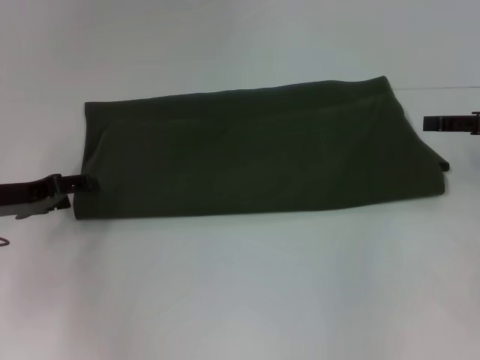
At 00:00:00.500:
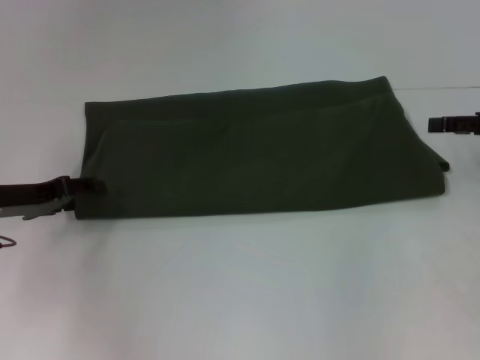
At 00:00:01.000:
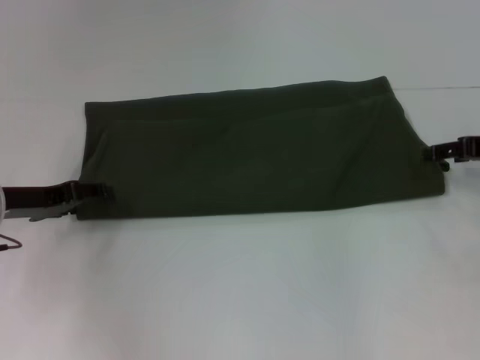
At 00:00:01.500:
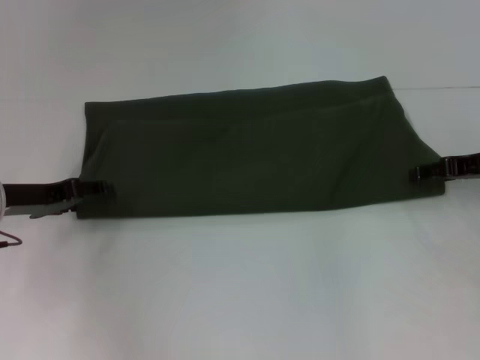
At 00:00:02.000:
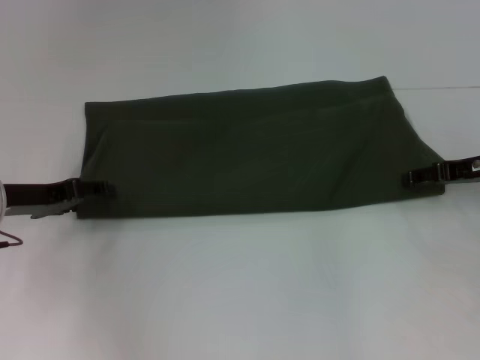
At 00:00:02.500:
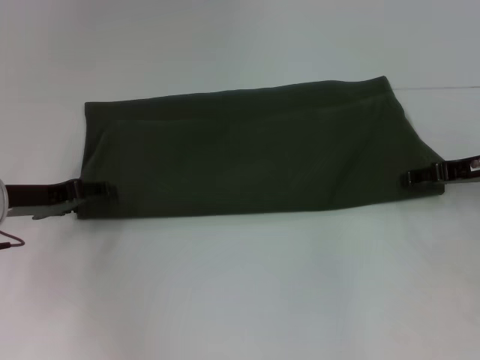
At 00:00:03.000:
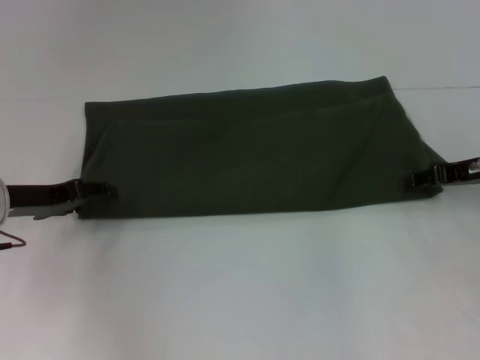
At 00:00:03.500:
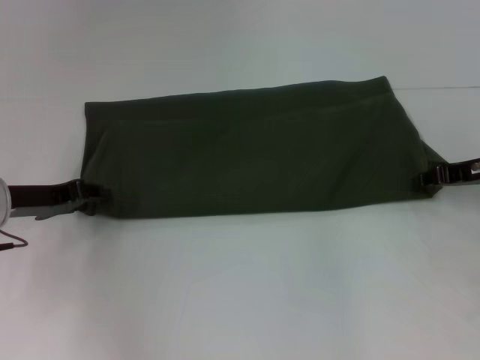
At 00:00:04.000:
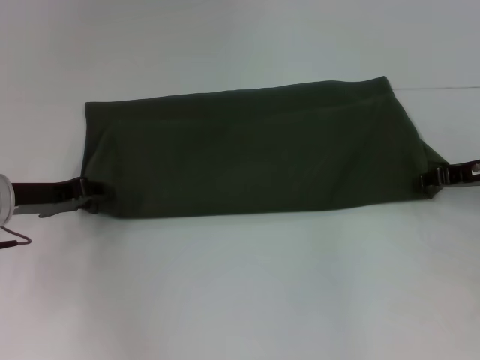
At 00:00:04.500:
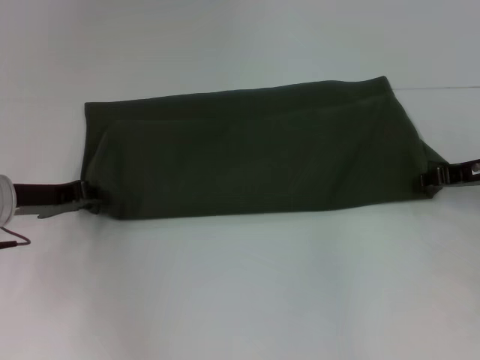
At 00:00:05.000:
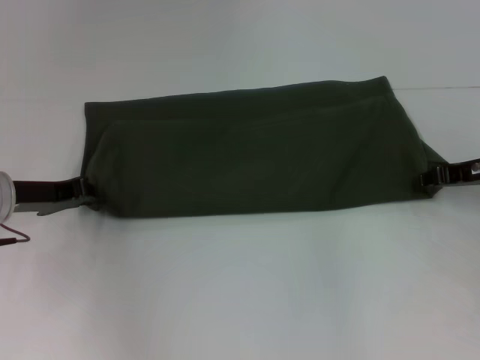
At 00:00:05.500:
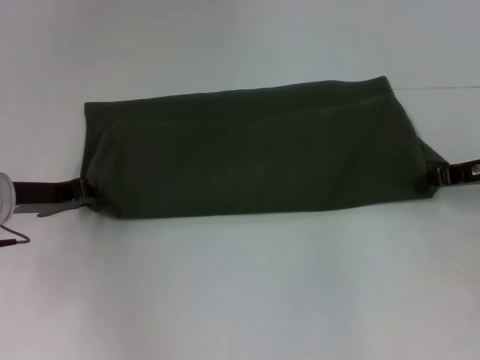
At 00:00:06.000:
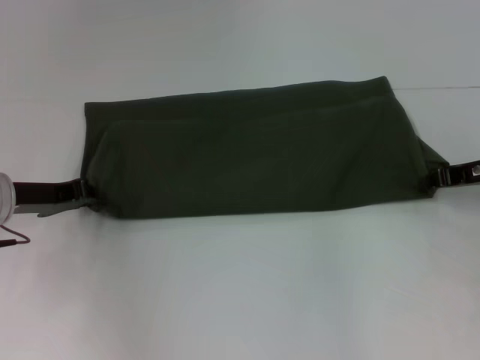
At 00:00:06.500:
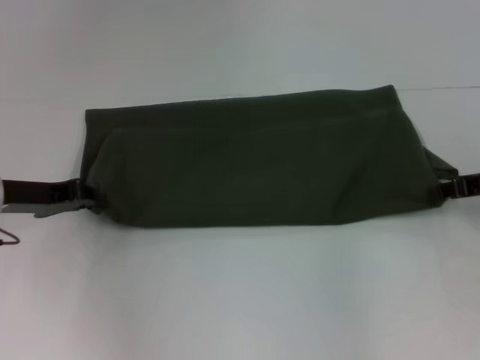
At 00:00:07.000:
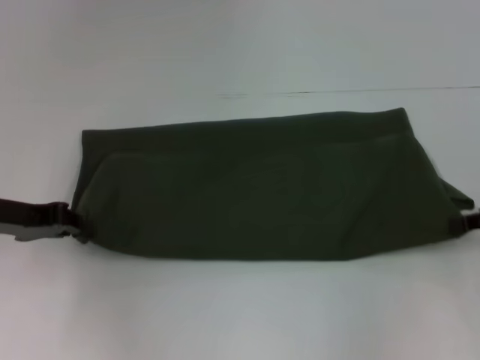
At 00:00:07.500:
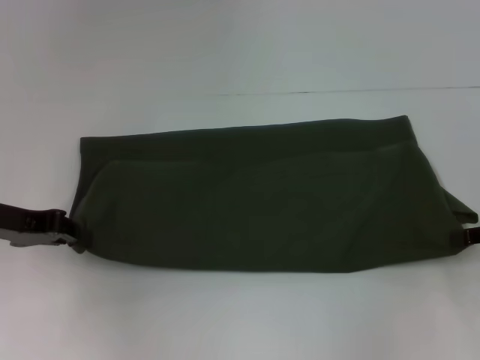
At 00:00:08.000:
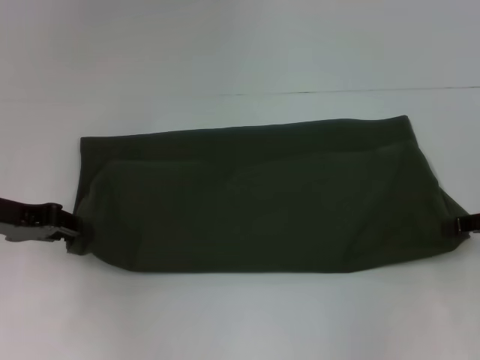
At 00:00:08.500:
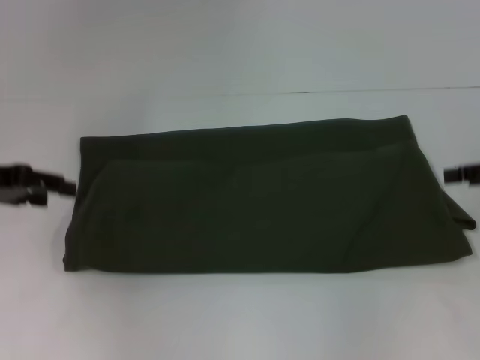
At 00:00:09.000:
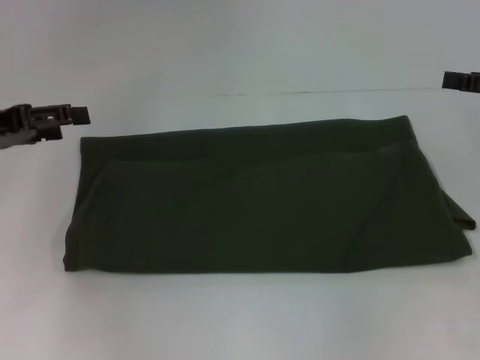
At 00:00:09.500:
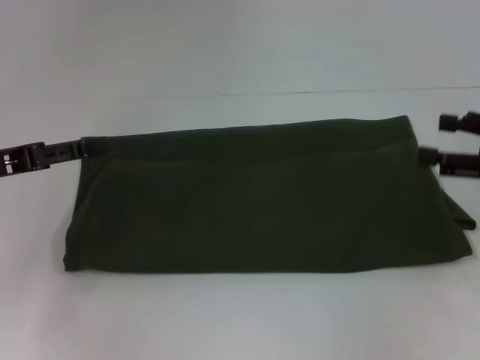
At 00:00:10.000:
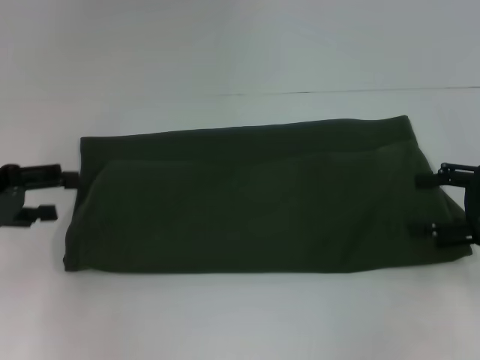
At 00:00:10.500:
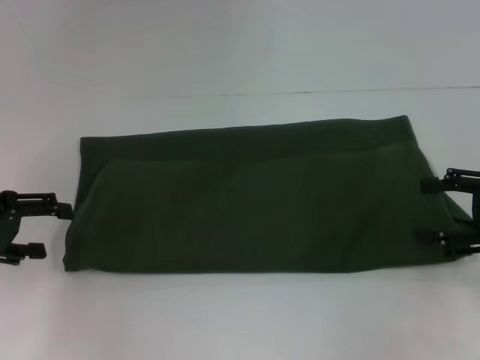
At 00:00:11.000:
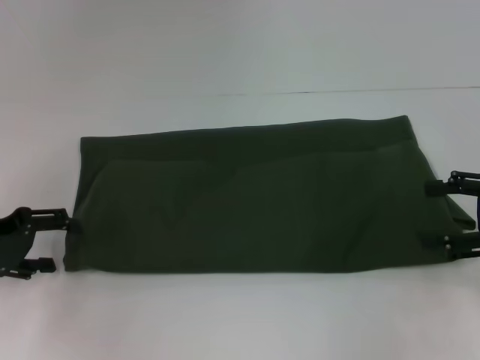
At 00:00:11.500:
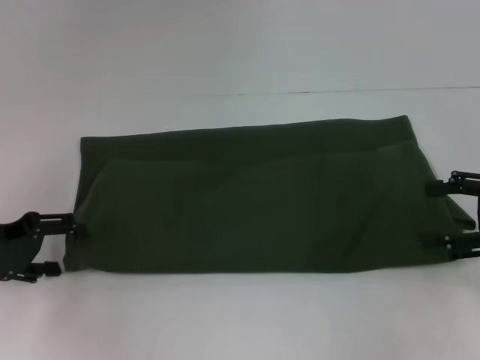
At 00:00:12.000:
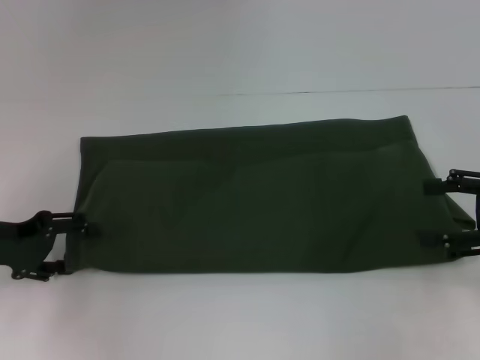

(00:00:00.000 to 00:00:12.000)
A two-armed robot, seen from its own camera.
00:00:00.000 - 00:00:02.000: The right gripper changes place by some 5 cm.
00:00:02.000 - 00:00:04.000: The left gripper closes.
00:00:06.000 - 00:00:08.000: The right gripper is displaced backward by approximately 10 cm; the left gripper moves about 5 cm.
00:00:08.000 - 00:00:10.000: The right gripper opens; the left gripper opens up.
00:00:10.000 - 00:00:12.000: The left gripper goes roughly 5 cm downward.

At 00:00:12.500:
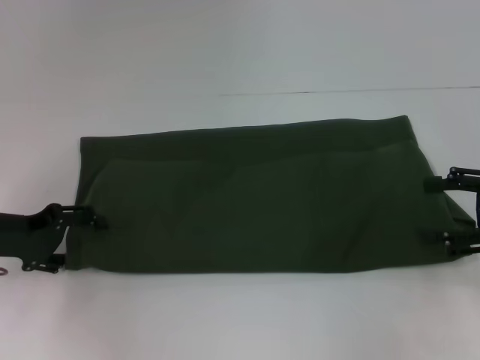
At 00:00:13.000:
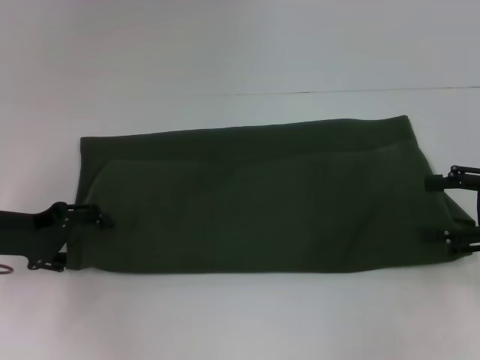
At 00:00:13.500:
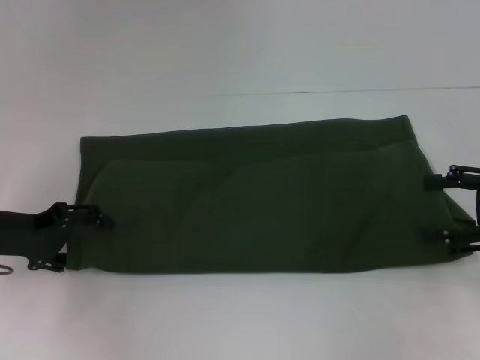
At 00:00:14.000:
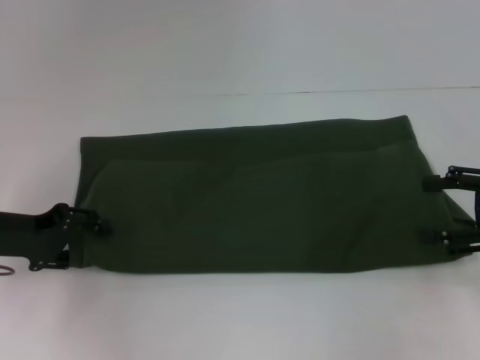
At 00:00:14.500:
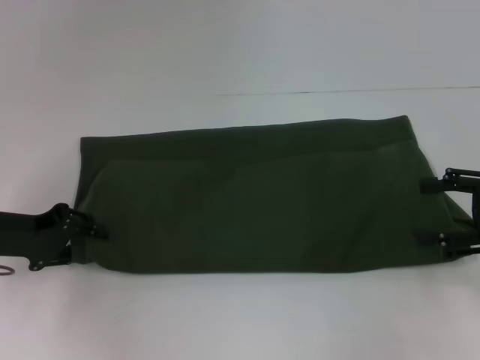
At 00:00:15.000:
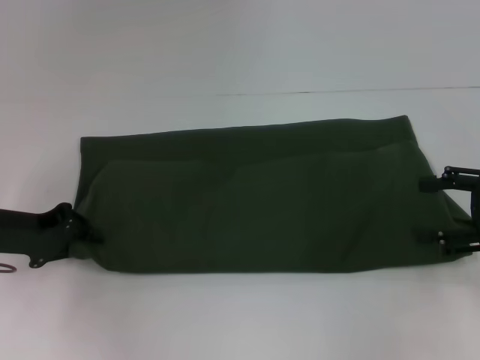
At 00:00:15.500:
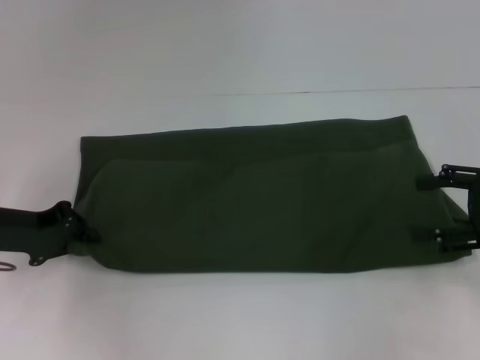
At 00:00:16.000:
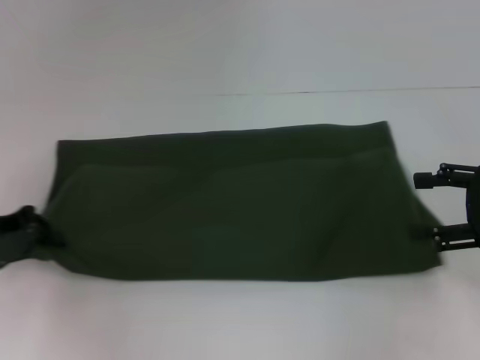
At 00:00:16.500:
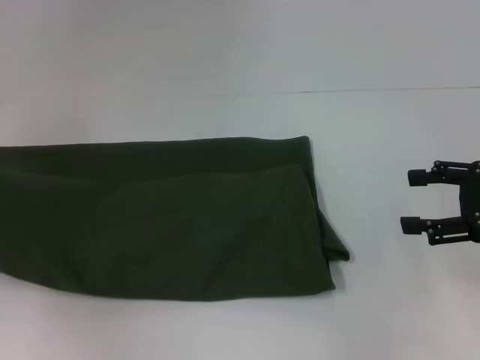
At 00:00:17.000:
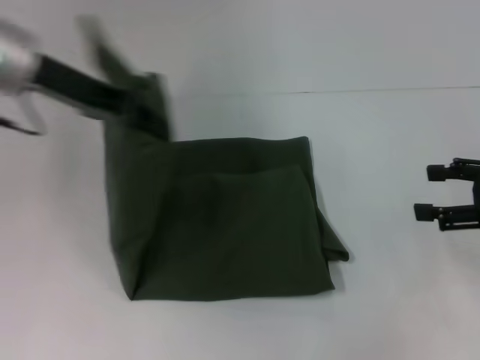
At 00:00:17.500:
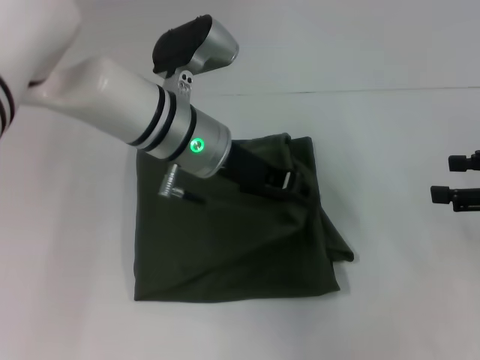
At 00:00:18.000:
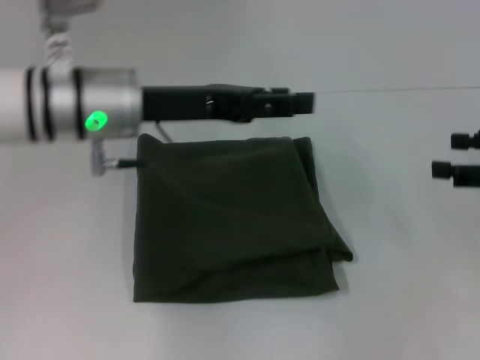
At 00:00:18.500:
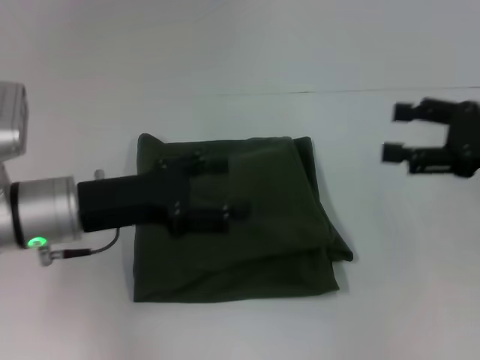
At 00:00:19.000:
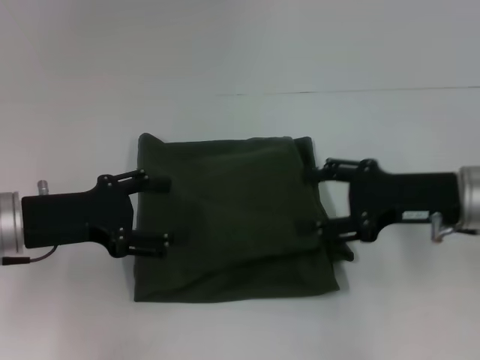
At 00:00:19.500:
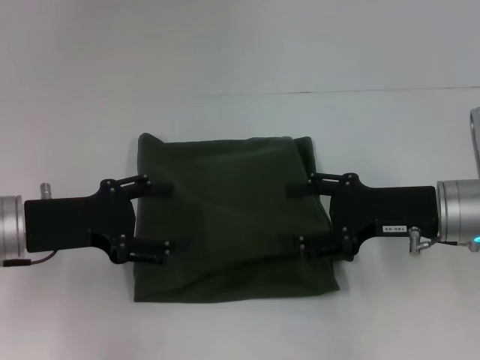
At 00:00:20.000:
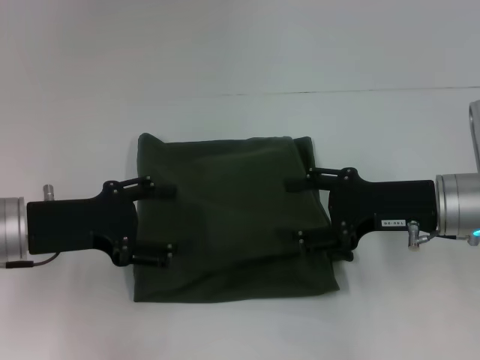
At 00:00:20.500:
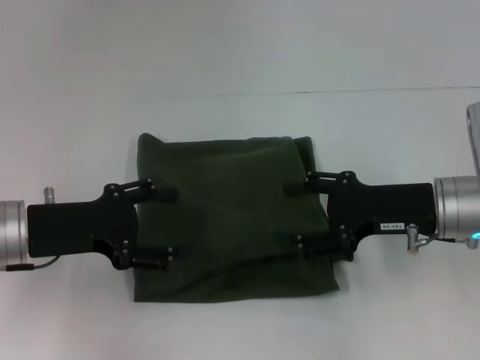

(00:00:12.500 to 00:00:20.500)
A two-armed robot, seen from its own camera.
Step, 00:00:12.500 - 00:00:18.000: Fold the clothes with your left hand.
00:00:12.500 - 00:00:14.500: The left gripper closes its fingers.
00:00:14.500 - 00:00:16.500: The left gripper moves to the left and upward, some 15 cm, and closes its fingers.
00:00:16.500 - 00:00:18.500: The left gripper shifts approximately 20 cm to the right, and opens its fingers.
00:00:18.500 - 00:00:20.500: The right gripper shifts about 10 cm to the left and downward.
